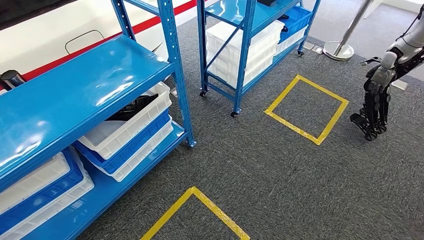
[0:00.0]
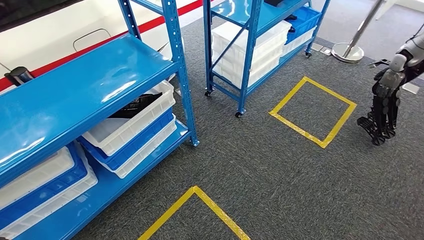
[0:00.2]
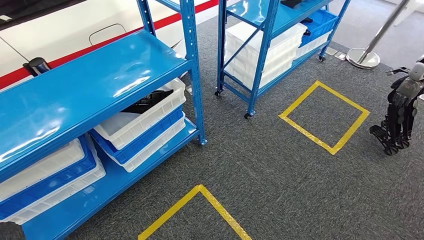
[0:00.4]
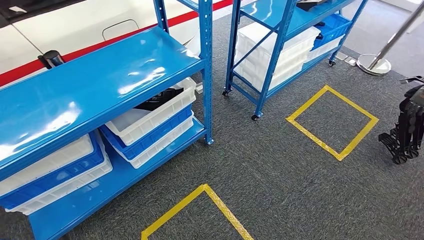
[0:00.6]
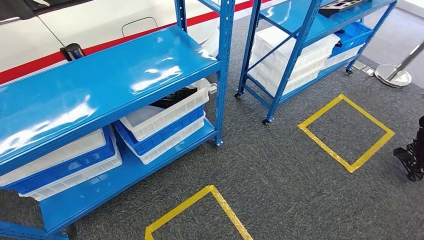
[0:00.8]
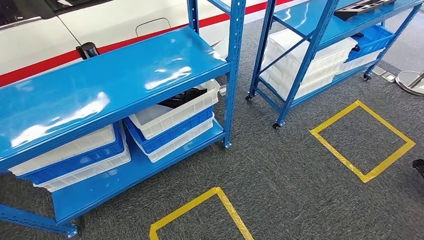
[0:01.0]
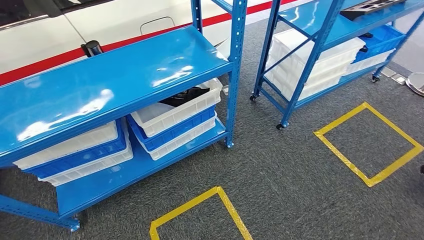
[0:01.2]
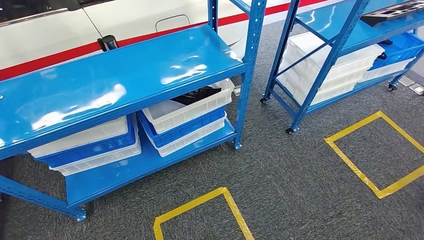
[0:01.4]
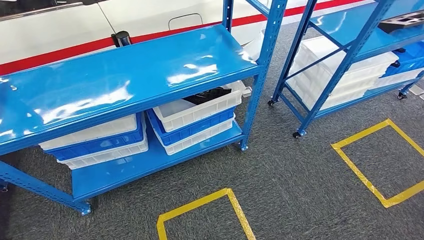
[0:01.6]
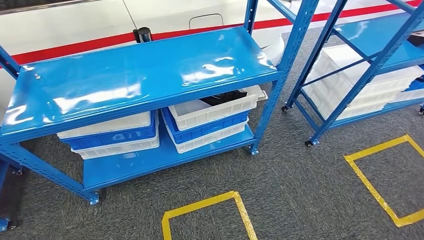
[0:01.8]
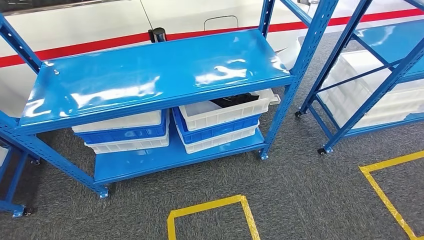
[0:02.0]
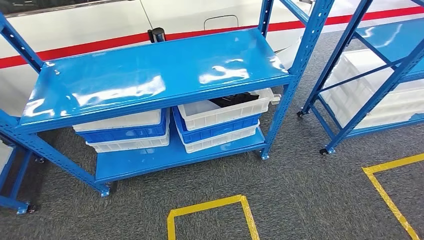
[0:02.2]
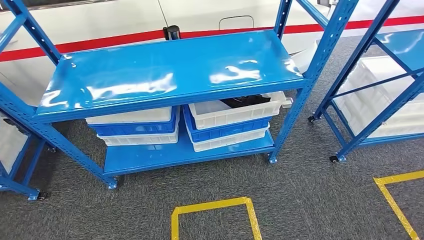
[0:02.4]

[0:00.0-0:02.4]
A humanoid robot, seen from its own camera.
Step, 0:00.0 to 0:02.2: Move to the initial position of the shelf.
